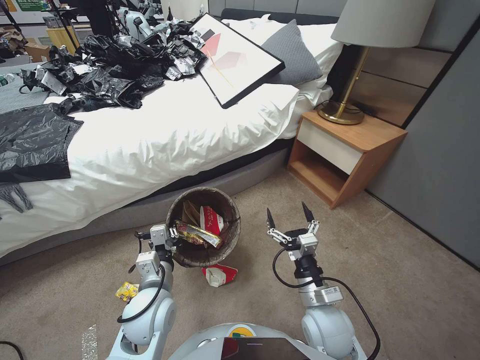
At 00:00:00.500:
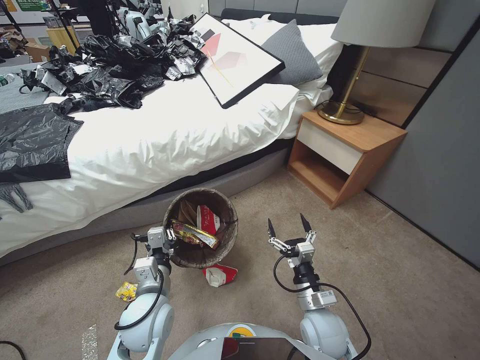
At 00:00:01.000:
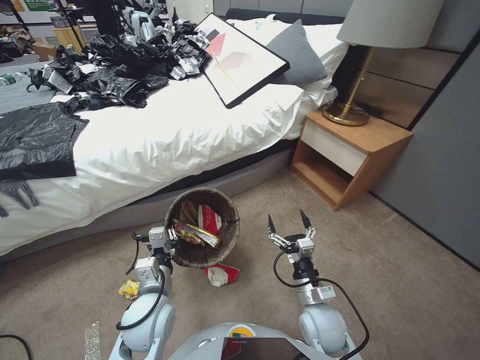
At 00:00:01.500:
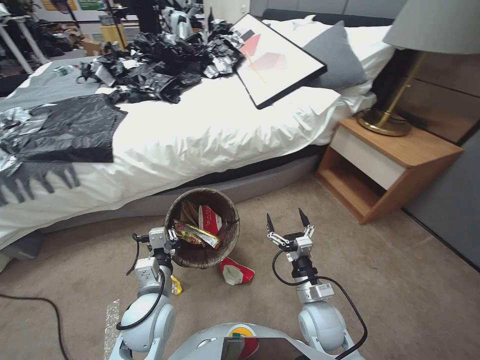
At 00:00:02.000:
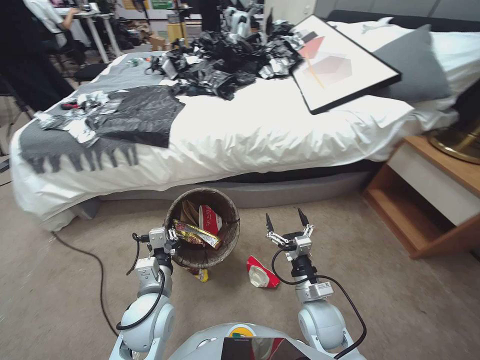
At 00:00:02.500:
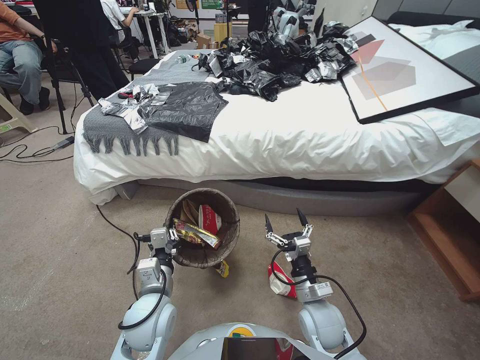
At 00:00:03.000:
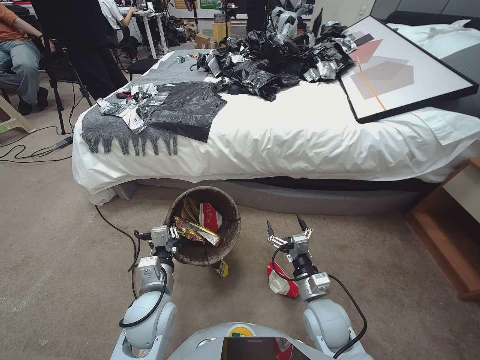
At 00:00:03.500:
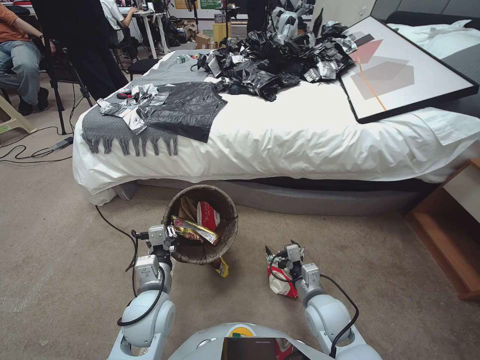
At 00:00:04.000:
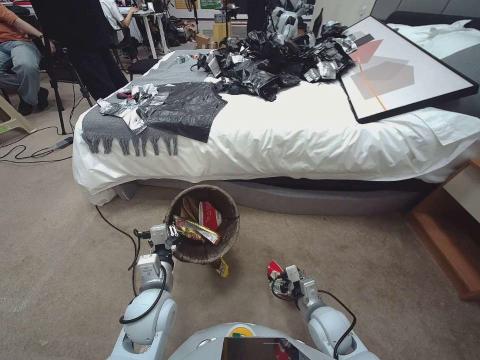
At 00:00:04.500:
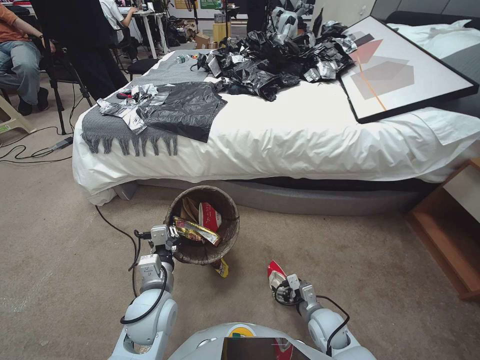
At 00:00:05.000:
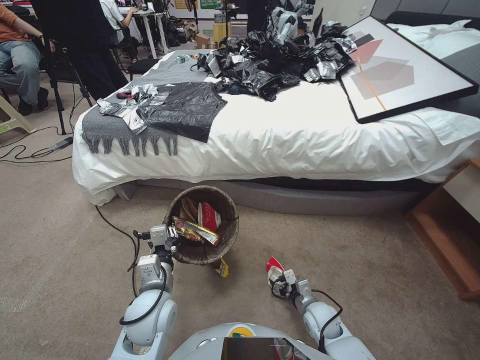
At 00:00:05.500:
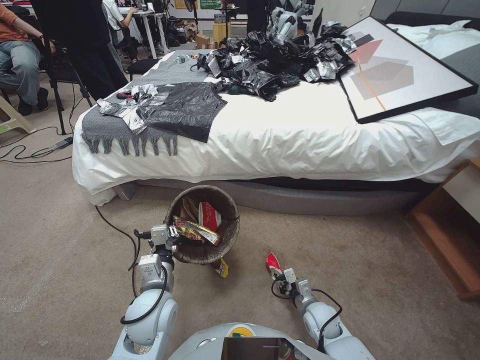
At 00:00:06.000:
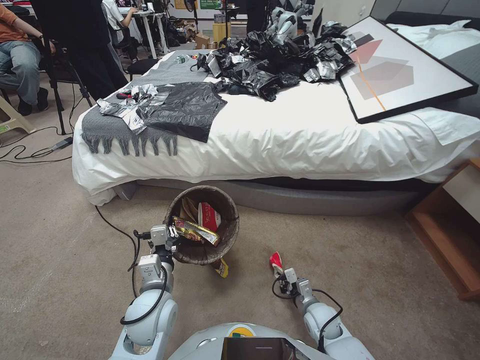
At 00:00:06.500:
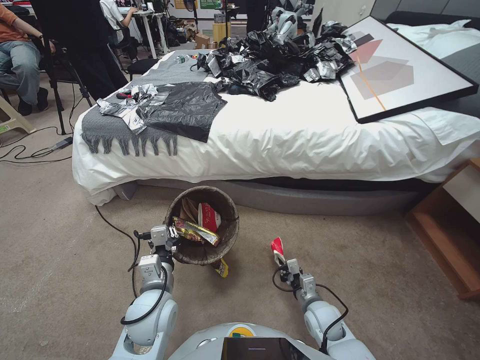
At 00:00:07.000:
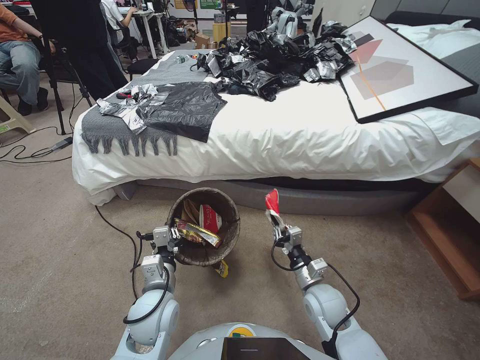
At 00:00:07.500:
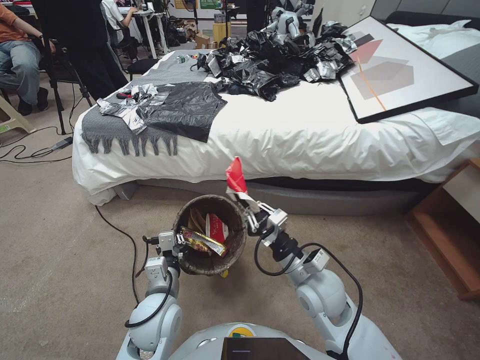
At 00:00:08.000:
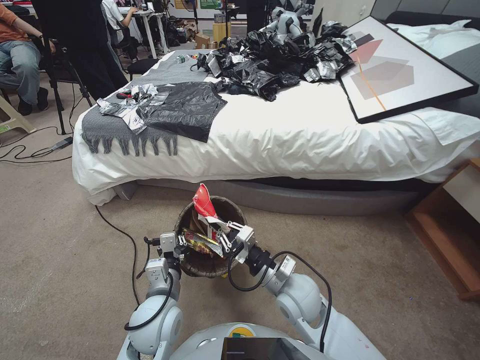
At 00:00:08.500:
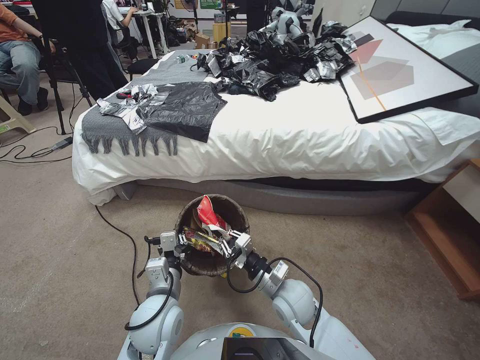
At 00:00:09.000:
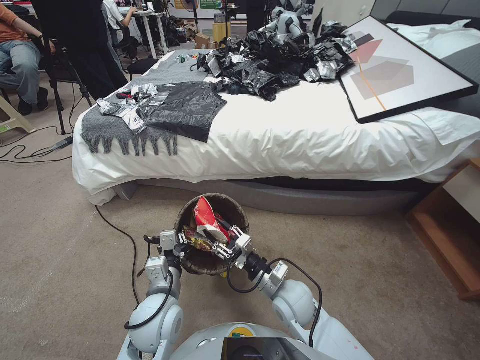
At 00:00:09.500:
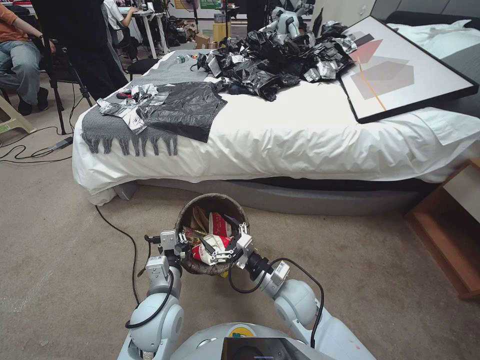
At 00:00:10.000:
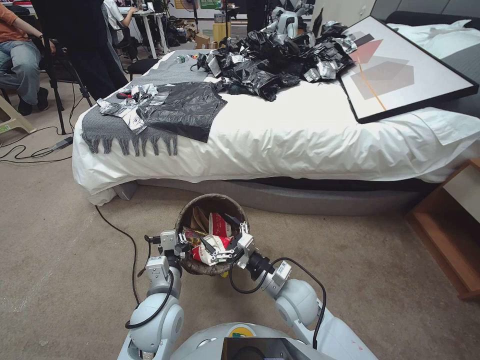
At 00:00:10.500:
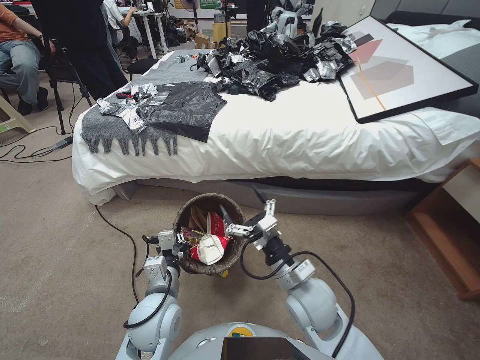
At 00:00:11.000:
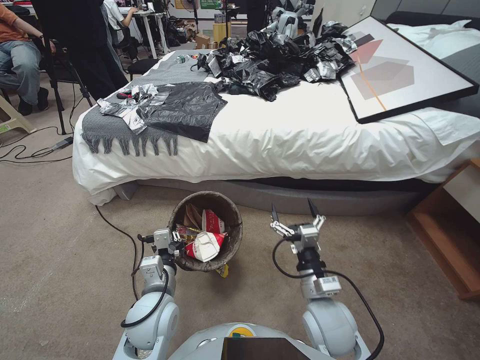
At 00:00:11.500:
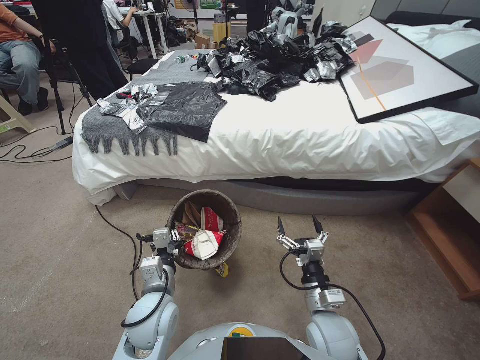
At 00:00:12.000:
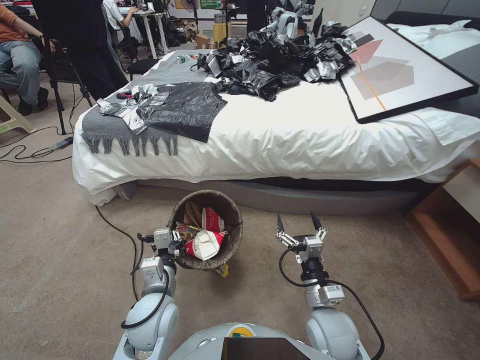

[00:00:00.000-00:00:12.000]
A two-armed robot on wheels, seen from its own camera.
Task of the whole recording: Pick up the trash bin, then pick up the garbage from the floor and place it into the trash bin.
00:00:00.000 to 00:00:02.000: The right gripper moves downward, approximately 10 cm.
00:00:02.000 to 00:00:04.000: The right gripper changes place by approximately 5 cm.
00:00:04.000 to 00:00:06.000: The right gripper goes approximately 10 cm downward, and closes.
00:00:06.000 to 00:00:08.000: The right gripper heads upward and to the left, covering some 25 cm.
00:00:08.000 to 00:00:10.000: The right gripper opens its fingers.
00:00:10.000 to 00:00:12.000: The right gripper shifts approximately 10 cm to the right and backward.

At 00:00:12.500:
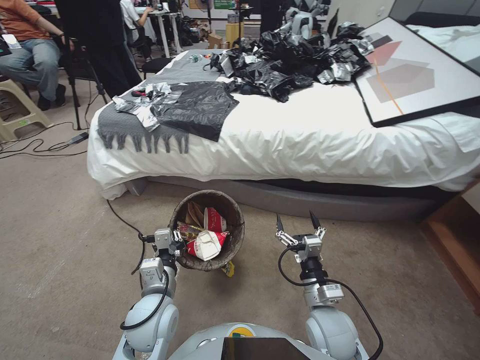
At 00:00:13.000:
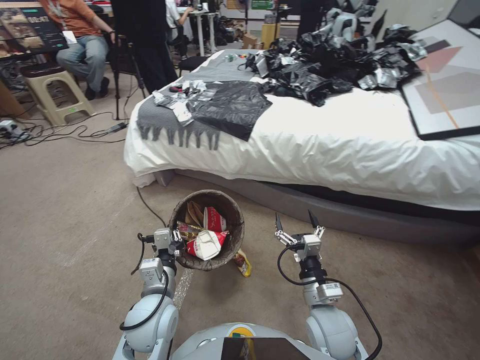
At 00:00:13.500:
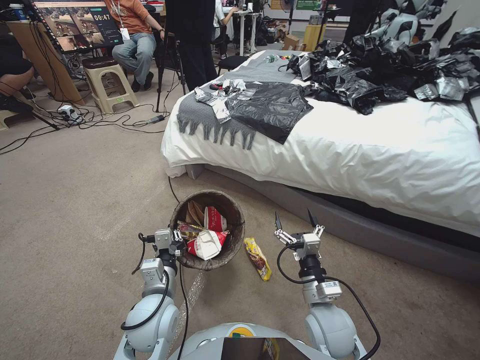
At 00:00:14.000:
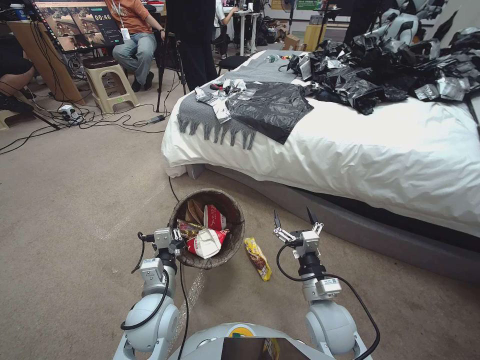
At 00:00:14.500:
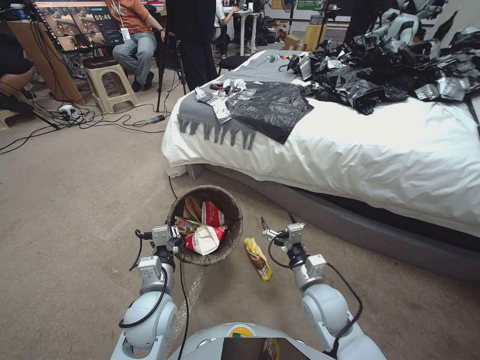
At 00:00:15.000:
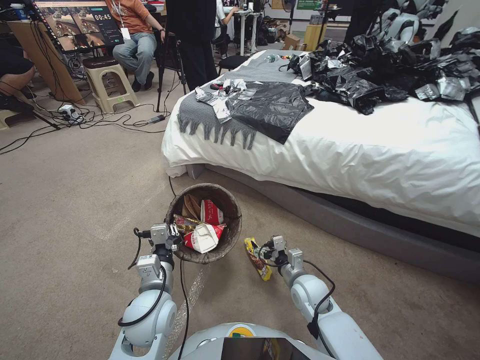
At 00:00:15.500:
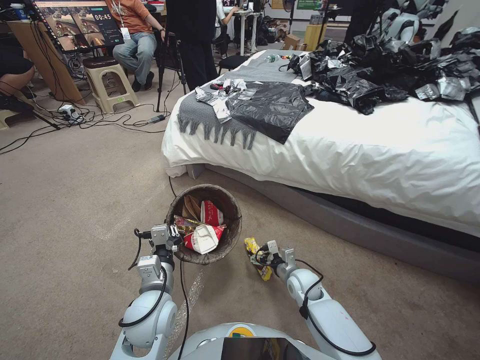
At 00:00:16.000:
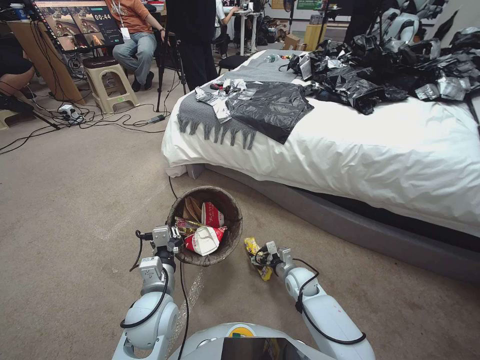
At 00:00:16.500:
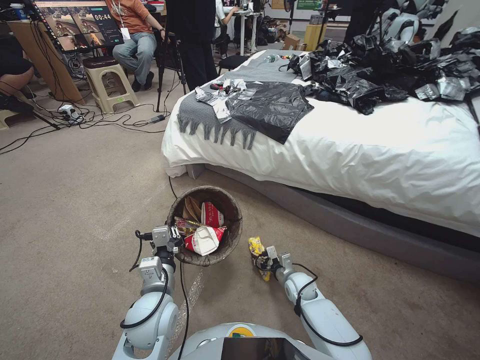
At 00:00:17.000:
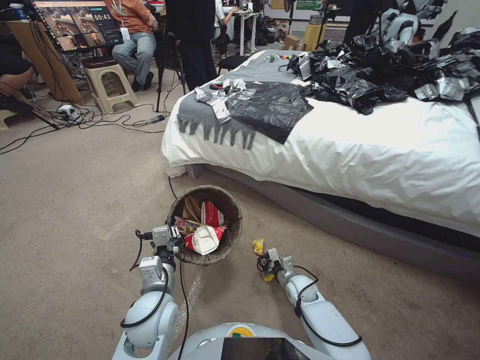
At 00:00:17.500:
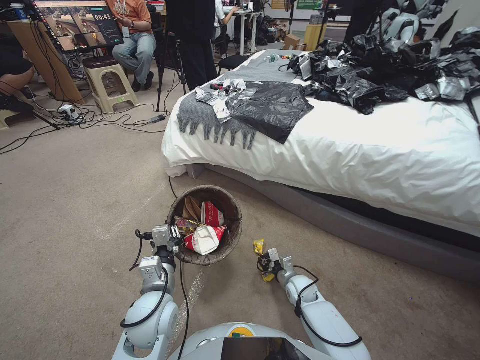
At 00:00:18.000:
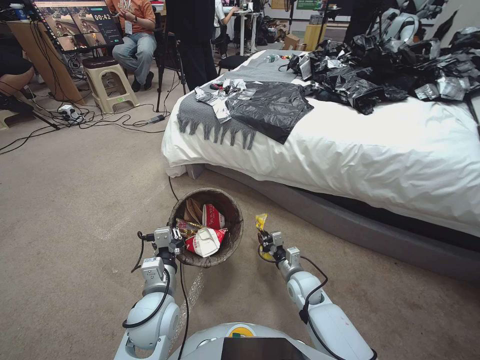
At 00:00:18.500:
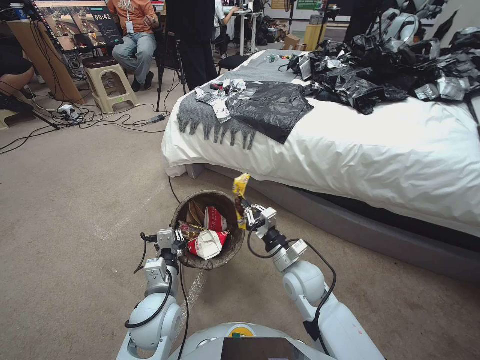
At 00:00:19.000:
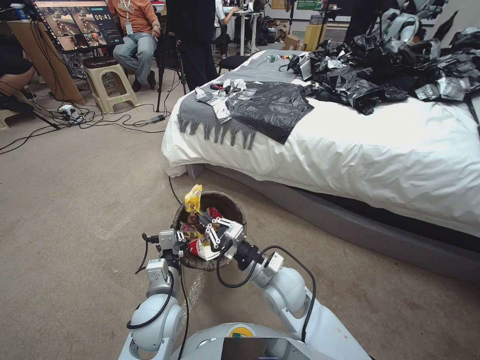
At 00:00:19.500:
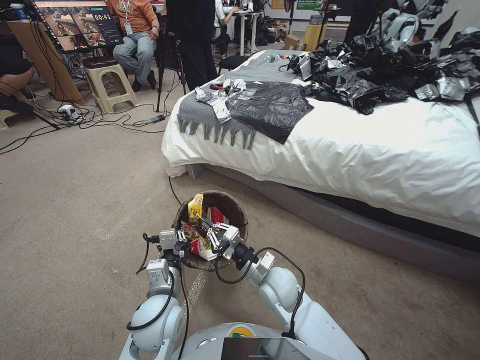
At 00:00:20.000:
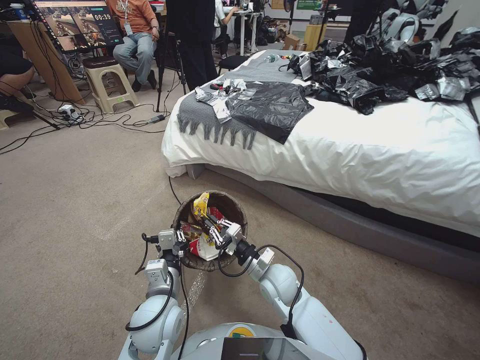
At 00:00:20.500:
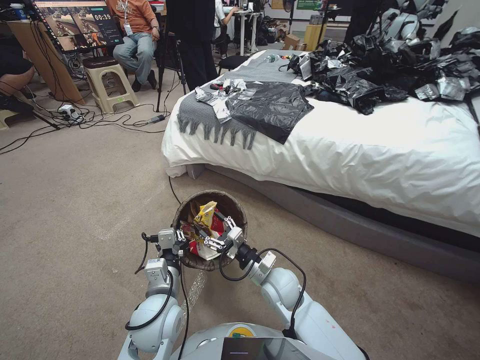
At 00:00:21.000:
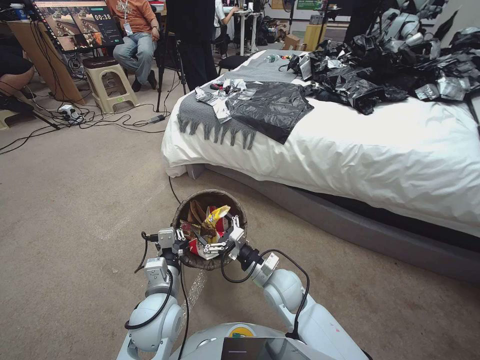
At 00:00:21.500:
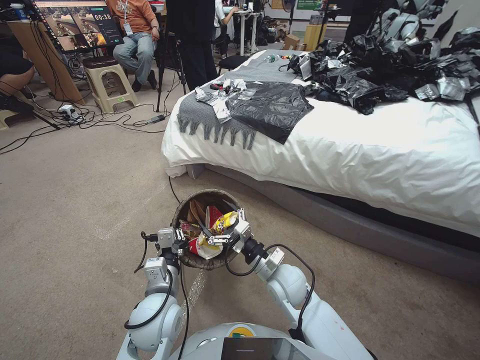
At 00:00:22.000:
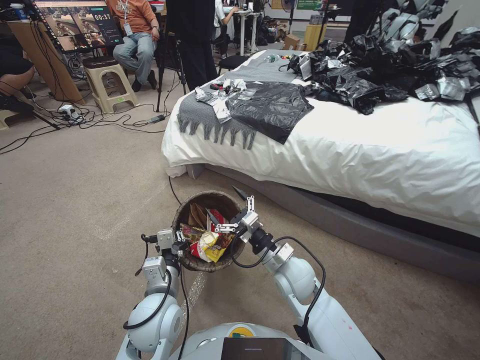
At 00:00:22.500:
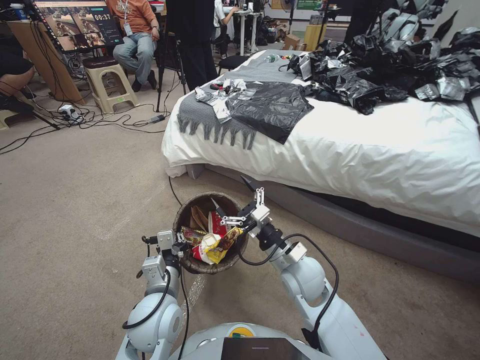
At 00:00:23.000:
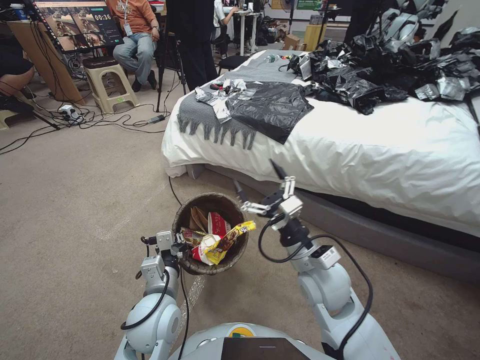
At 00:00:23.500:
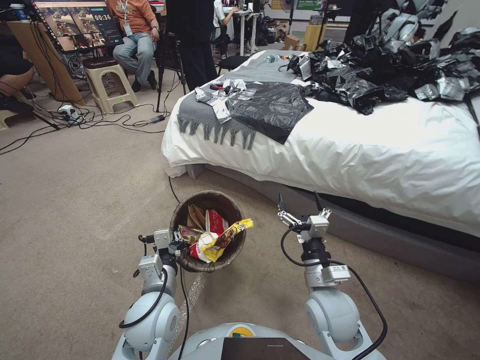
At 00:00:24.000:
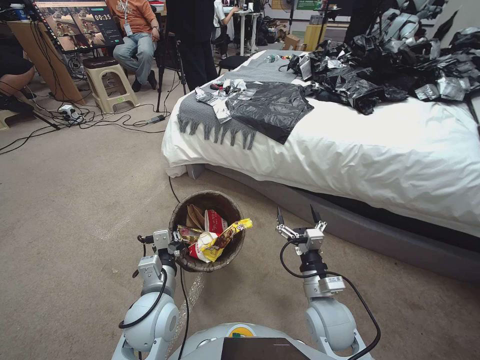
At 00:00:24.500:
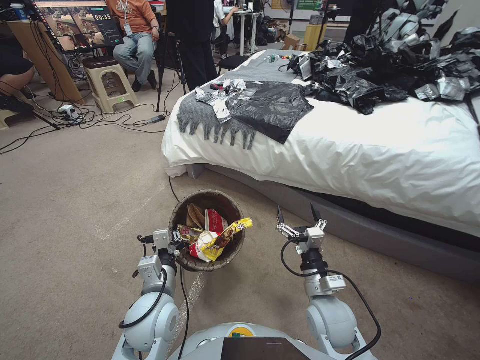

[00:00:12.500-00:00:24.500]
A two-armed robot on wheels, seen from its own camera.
Task of the whole recording: Pick up the trash bin, then pick up the garbage from the floor and place it into the trash bin.
00:00:14.500 to 00:00:16.500: The right gripper heads downward and forward, covering about 20 cm.
00:00:16.500 to 00:00:18.500: The right gripper goes some 10 cm upward, and closes its fingers.
00:00:18.500 to 00:00:20.500: The right gripper travels to the left and upward by approximately 10 cm, and opens its fingers.
00:00:20.500 to 00:00:22.500: The right gripper travels upward by approximately 10 cm, and opens its fingers.
00:00:22.500 to 00:00:24.500: The right gripper heads backward, to the right and downward, covering roughly 10 cm.

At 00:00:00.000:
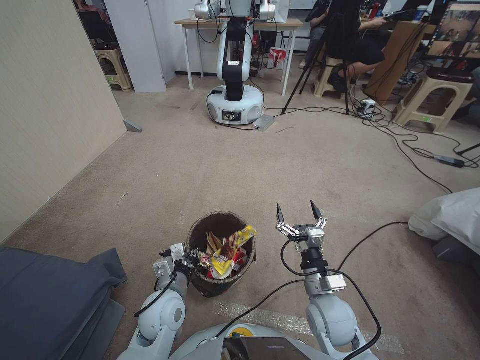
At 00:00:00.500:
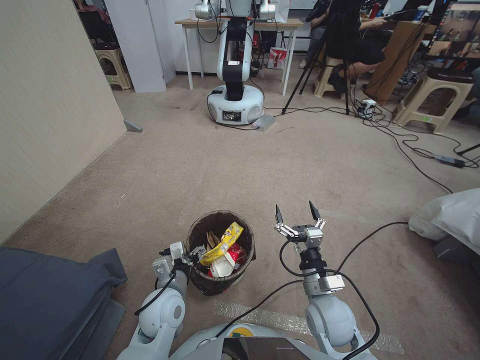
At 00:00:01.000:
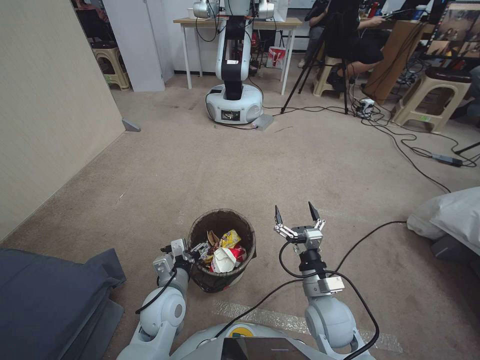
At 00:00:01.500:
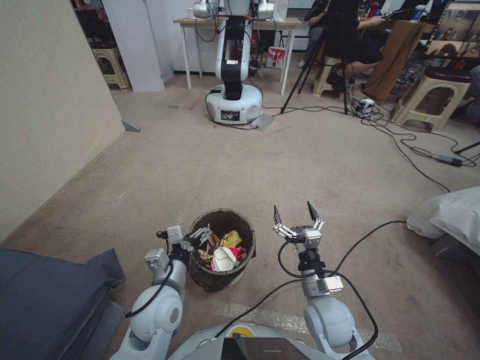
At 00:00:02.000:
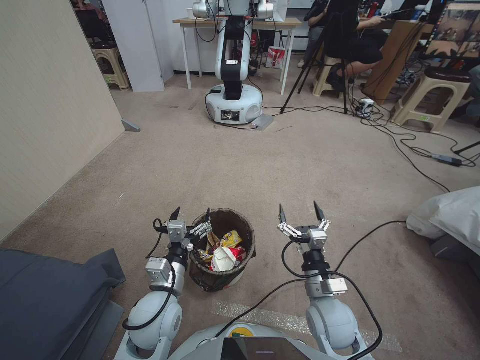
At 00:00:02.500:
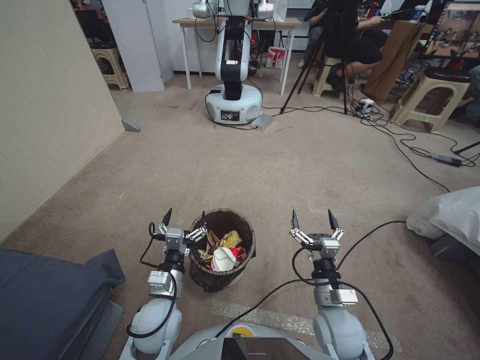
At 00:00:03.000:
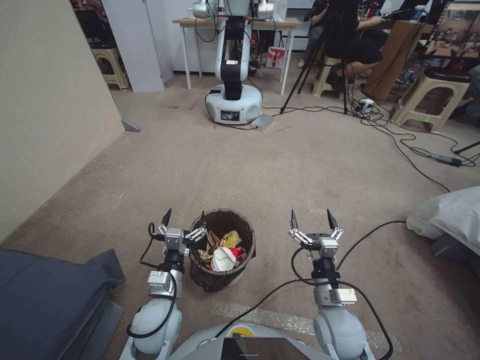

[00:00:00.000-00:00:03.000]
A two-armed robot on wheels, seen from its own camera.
Task of the whole recording: Pick up the trash bin, then pick up the garbage from the floor and place it into the trash bin.
00:00:00.000 to 00:00:01.500: The left gripper opens its fingers.
